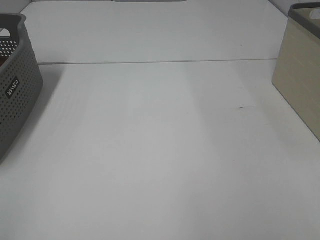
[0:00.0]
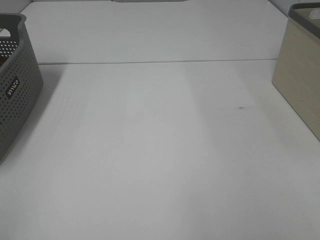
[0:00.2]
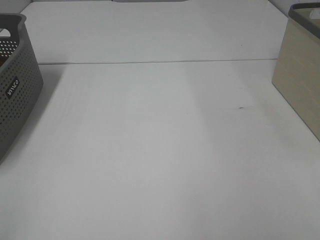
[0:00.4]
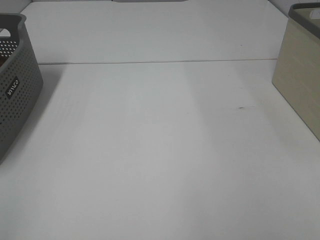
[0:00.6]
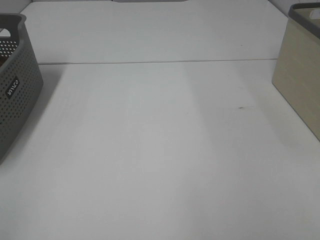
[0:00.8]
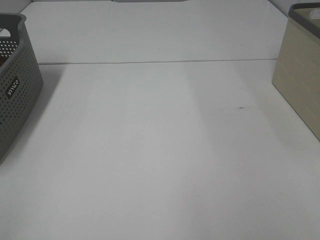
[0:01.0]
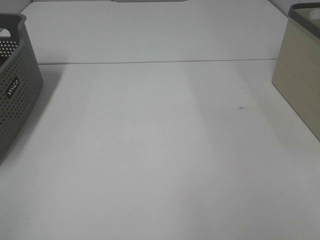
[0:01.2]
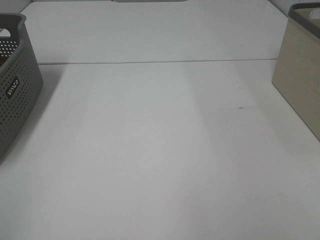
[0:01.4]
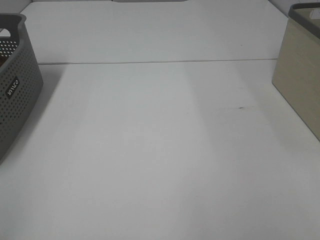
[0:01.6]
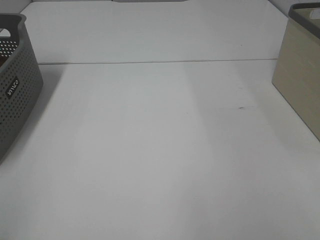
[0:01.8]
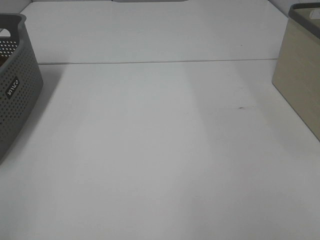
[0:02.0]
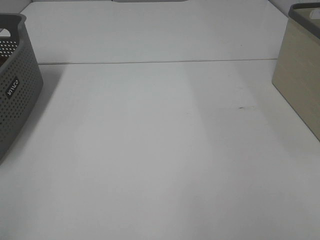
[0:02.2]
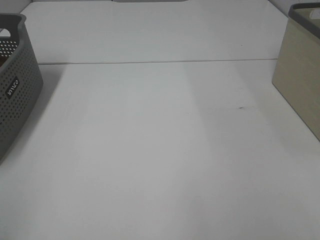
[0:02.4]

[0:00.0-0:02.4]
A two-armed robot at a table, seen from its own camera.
0:00.0 to 0:02.4: Neither gripper changes place.

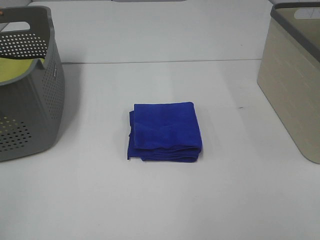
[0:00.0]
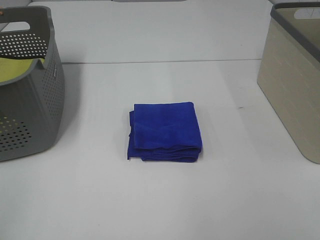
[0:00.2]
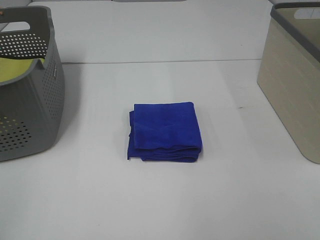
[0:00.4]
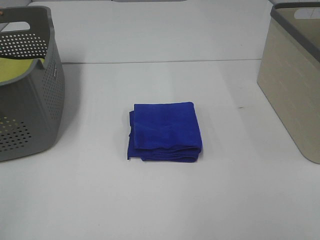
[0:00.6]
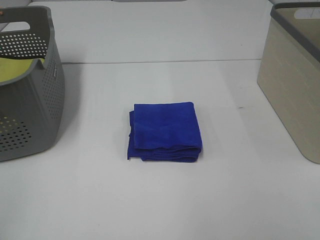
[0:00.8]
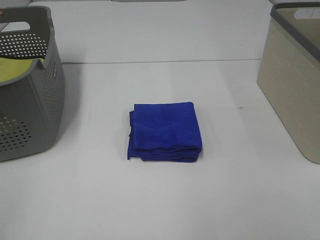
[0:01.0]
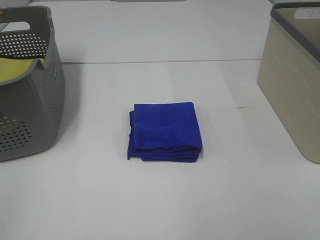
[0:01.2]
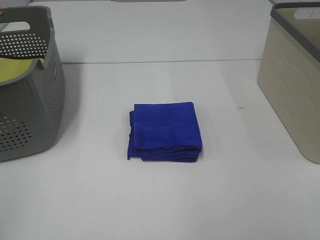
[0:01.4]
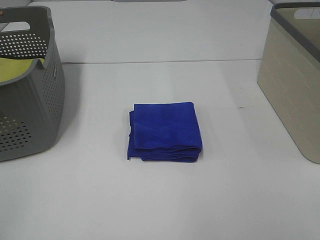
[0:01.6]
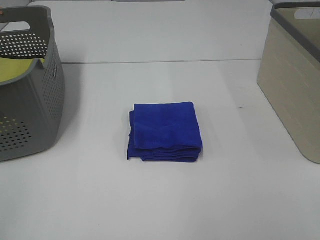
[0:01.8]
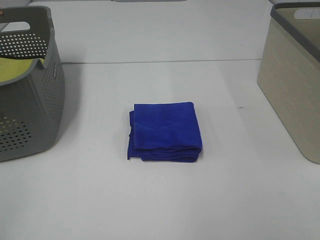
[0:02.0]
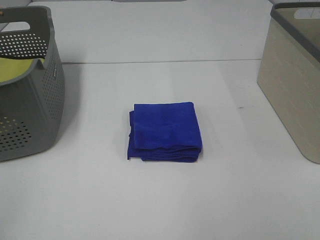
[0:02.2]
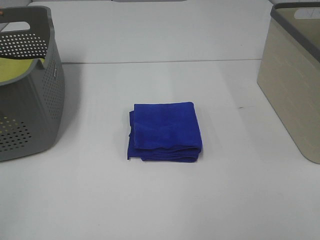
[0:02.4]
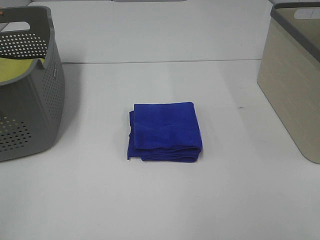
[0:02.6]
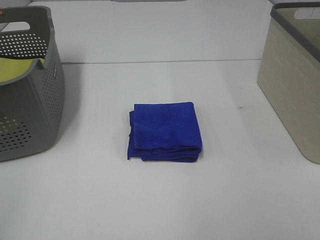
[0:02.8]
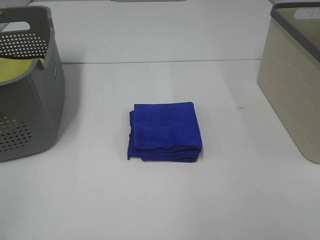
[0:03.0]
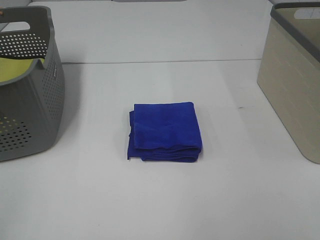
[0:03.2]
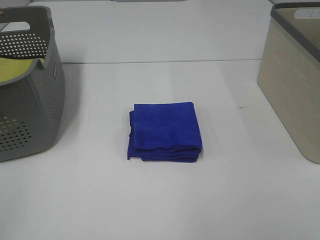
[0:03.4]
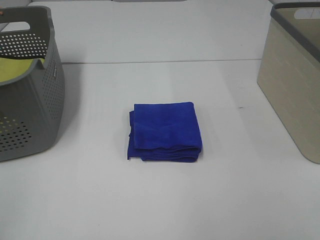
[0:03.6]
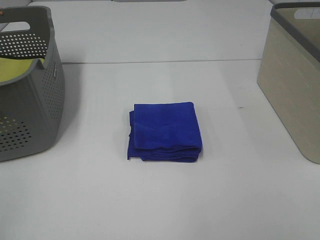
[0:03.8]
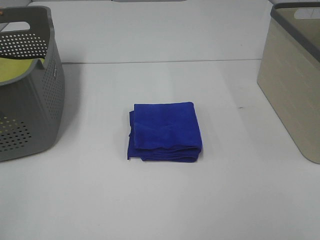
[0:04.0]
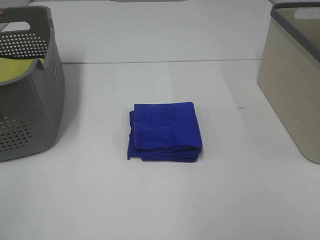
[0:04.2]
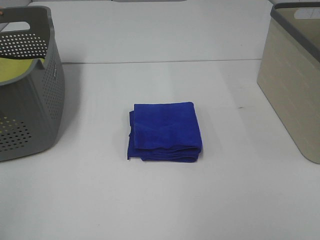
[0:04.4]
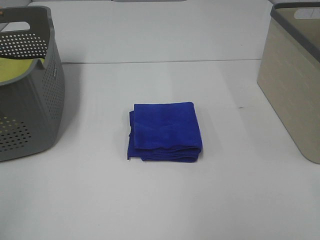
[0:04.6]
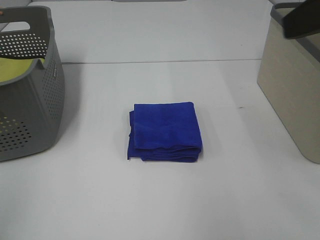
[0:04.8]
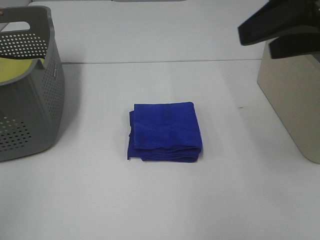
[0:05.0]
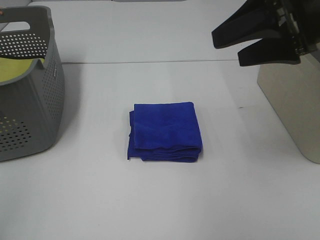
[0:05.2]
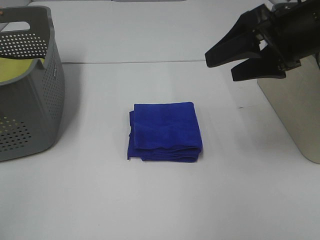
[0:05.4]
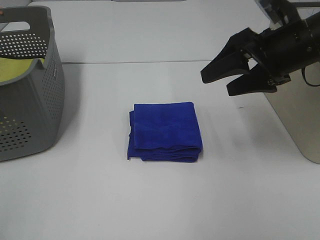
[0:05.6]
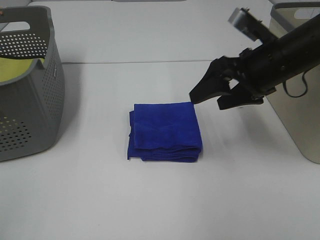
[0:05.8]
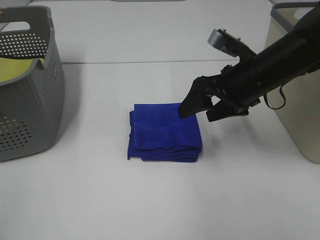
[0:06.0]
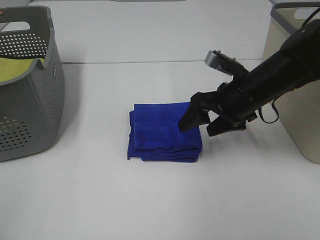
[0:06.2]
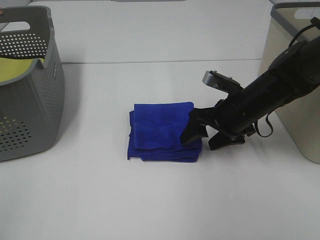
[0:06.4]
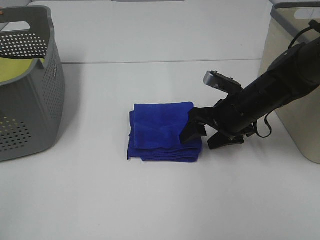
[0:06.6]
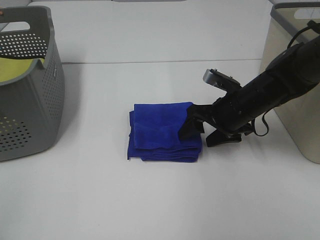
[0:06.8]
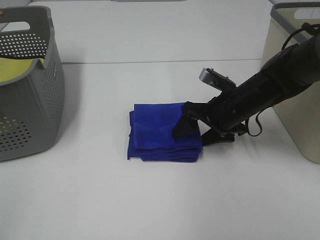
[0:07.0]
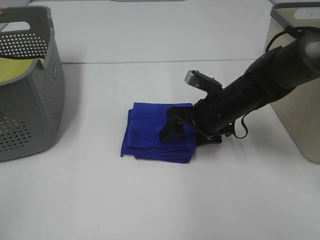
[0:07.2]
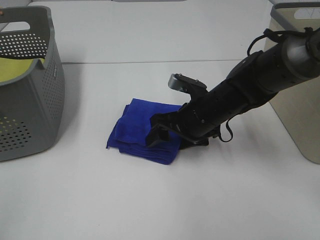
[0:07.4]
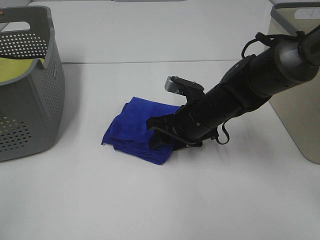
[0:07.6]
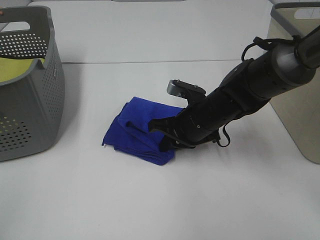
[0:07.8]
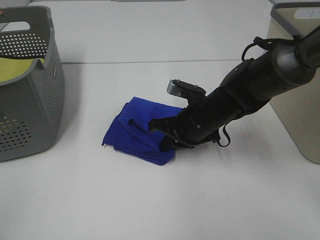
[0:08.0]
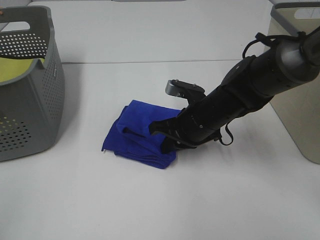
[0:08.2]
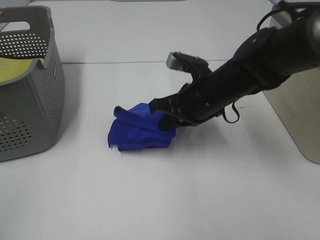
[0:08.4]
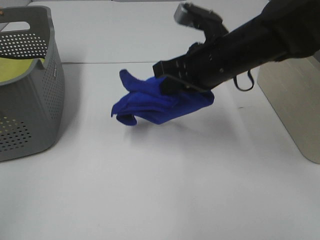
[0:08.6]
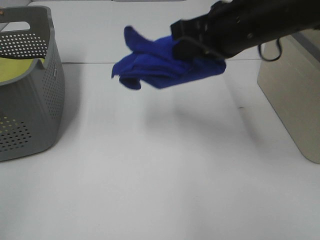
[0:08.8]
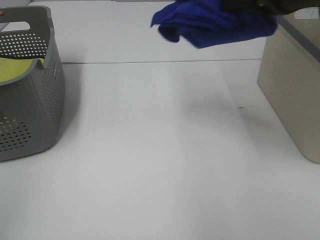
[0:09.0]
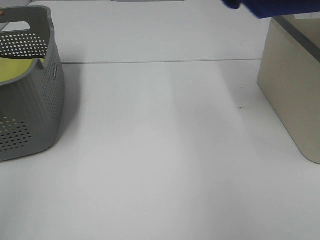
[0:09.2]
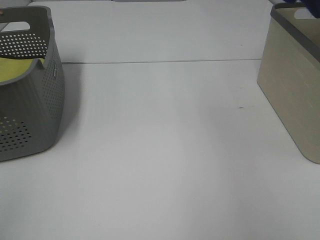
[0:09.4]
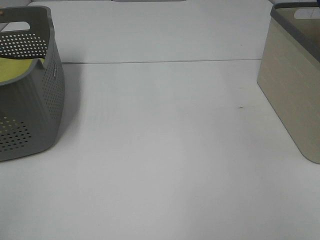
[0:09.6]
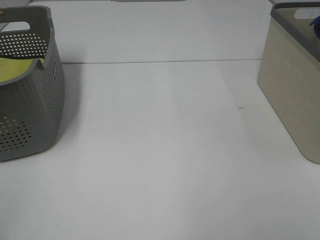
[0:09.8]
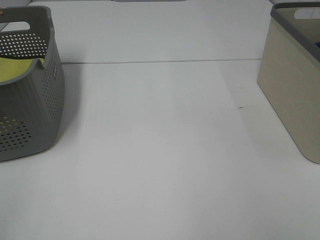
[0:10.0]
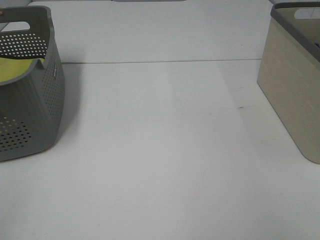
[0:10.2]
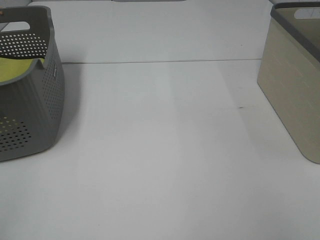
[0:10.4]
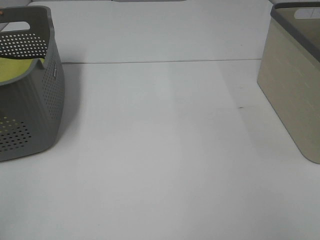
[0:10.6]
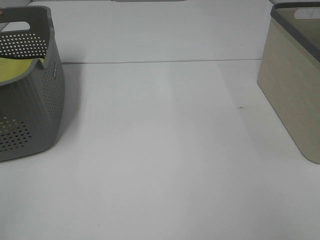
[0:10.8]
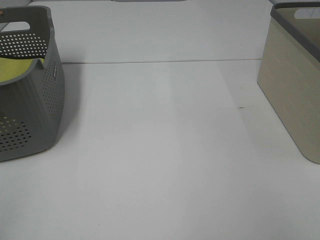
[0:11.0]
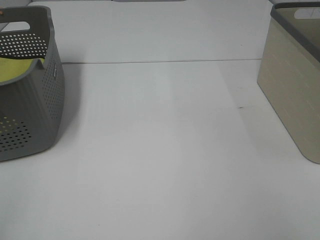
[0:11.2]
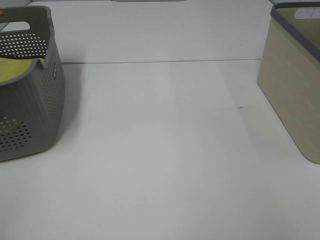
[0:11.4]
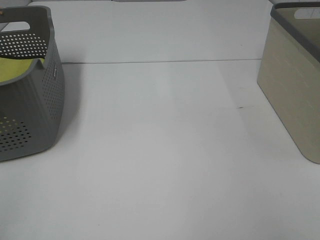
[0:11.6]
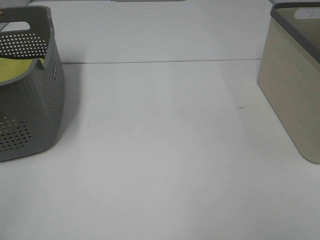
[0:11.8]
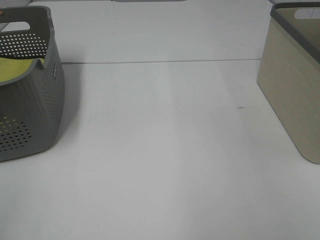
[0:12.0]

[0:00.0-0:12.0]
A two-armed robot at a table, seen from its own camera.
Step, 0:00.0 to 0:07.8: Right hand: grab the folded blue towel.
Step, 0:08.0 to 0:12.0: Right hand: place the blue towel in right basket.
0:00.0 to 0:03.0: Both grippers stay put.
0:04.4 to 0:06.0: The right gripper moves forward, downward and to the left, about 35 cm.
0:06.0 to 0:07.6: The right gripper travels downward and to the left by approximately 10 cm.
0:07.6 to 0:09.0: The right gripper heads upward and to the right, covering roughly 30 cm, and closes.
0:09.0 to 0:10.4: The right gripper is displaced to the right and downward by about 25 cm.

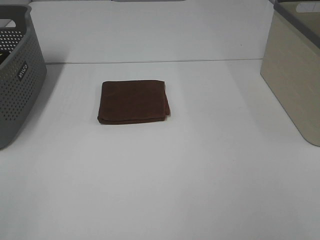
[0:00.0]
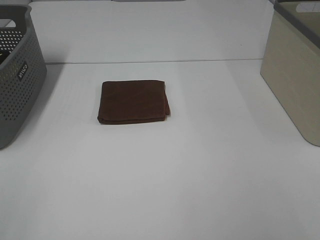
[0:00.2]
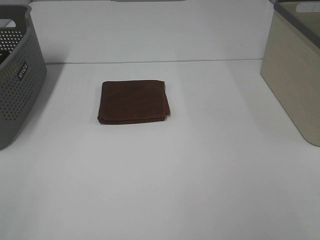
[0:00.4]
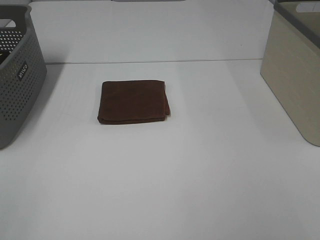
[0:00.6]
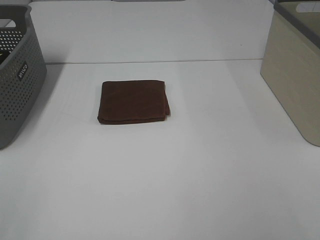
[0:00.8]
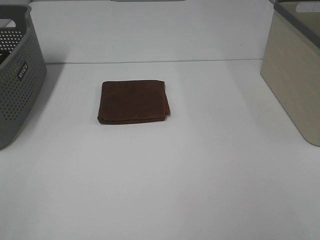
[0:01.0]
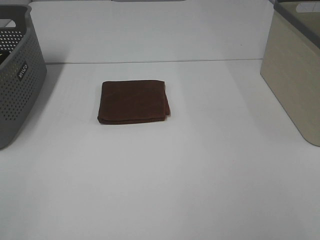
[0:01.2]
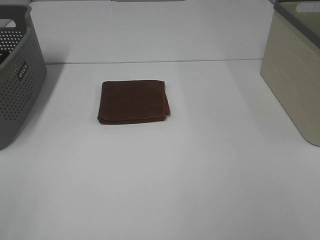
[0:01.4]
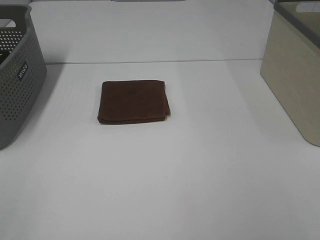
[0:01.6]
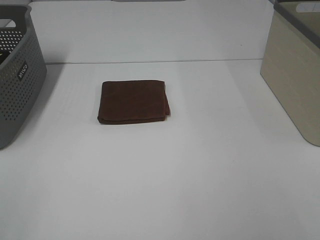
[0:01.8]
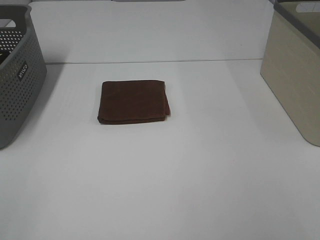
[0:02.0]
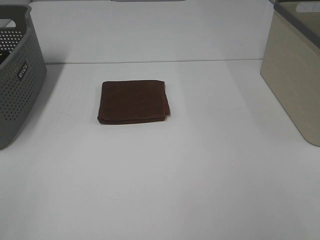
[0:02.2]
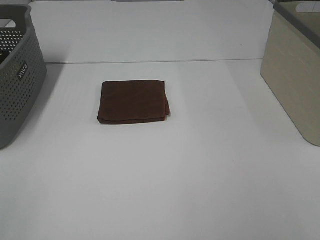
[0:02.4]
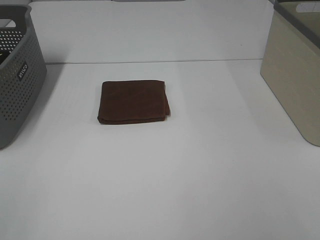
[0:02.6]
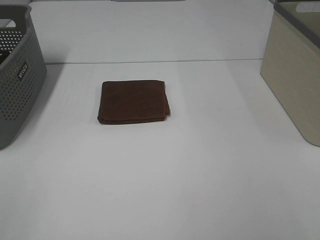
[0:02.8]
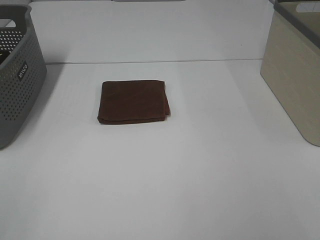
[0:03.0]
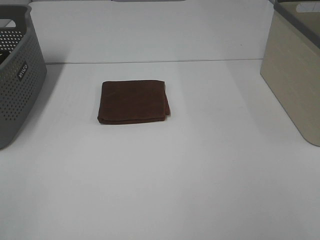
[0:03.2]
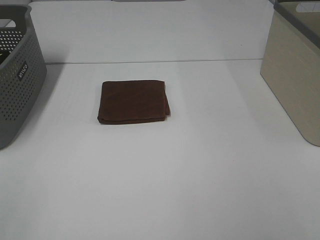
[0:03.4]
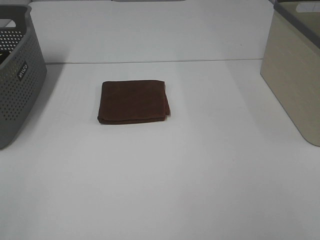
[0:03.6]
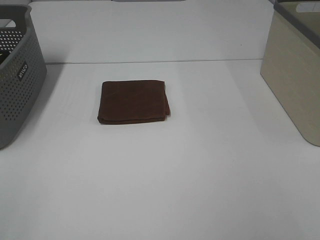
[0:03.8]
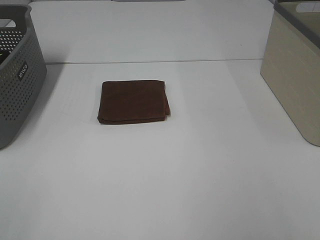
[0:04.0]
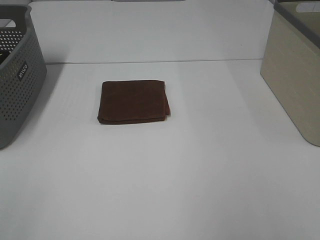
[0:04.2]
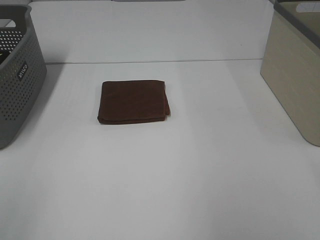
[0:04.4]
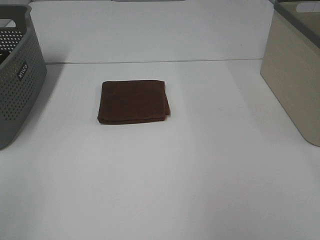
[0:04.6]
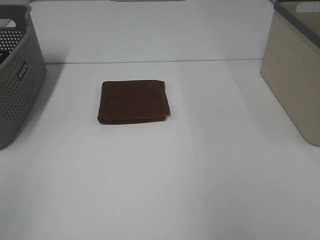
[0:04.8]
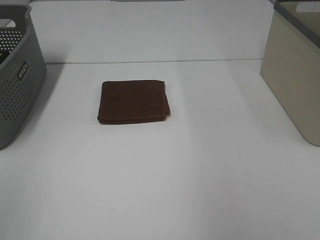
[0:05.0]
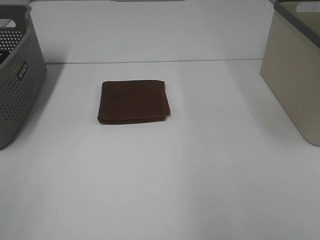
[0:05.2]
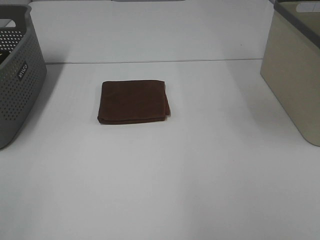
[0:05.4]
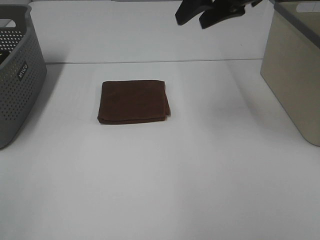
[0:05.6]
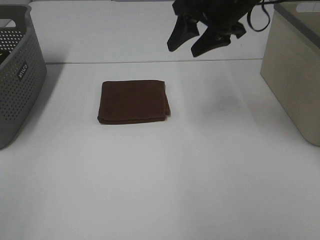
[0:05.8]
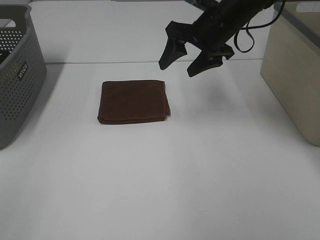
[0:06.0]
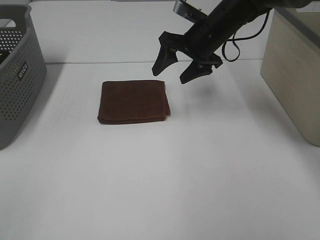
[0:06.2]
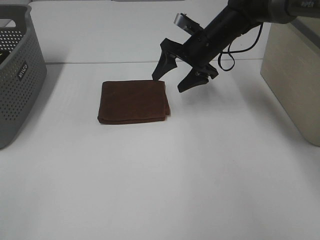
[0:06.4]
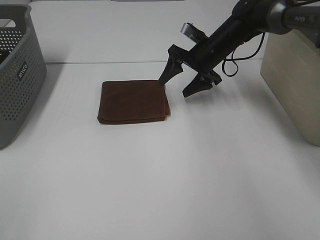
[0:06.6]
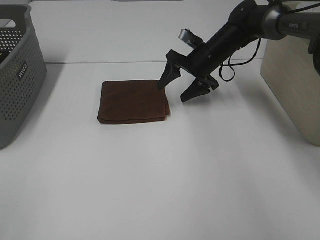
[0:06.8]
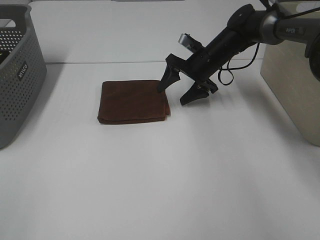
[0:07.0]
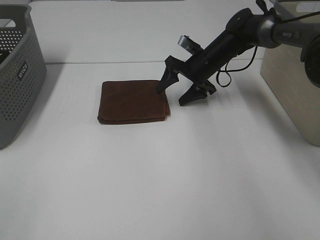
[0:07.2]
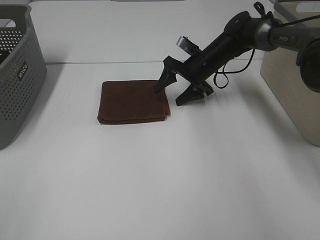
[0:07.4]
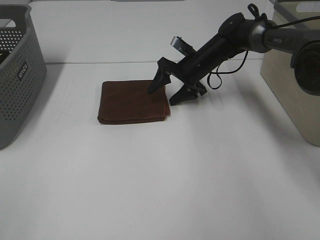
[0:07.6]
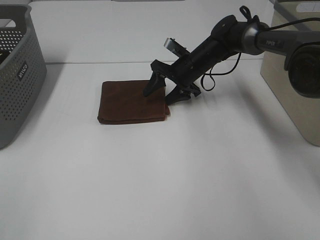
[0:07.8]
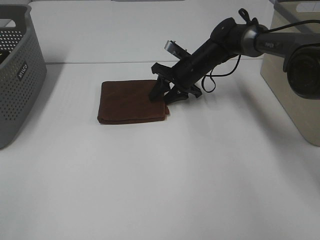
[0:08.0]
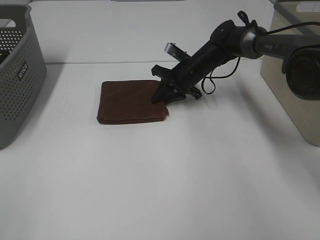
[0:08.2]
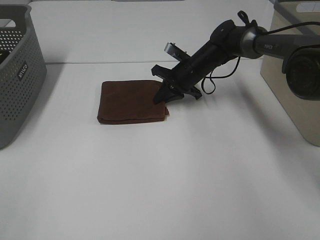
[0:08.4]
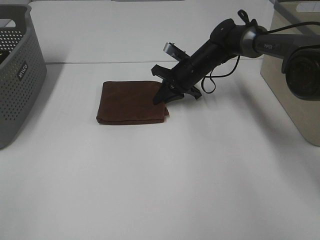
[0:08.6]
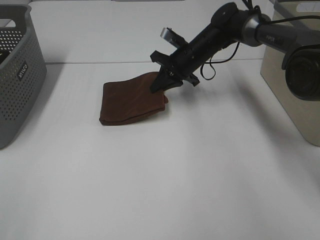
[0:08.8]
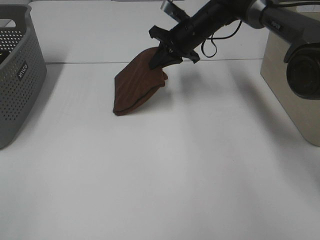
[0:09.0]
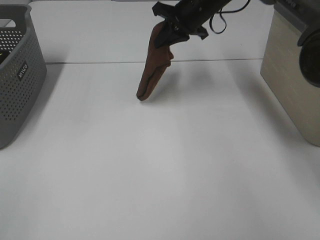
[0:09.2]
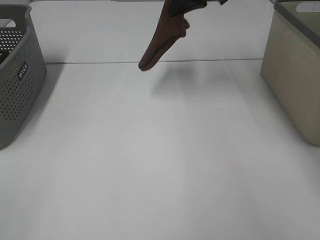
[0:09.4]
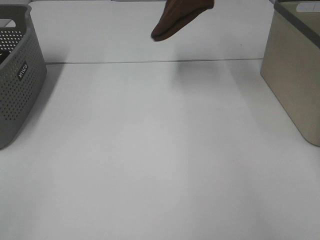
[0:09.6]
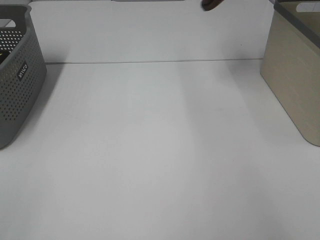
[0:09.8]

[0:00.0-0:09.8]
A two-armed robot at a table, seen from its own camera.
Step, 0:00.0 to 0:08.6: Right hand: grab the folded brown towel.
0:00.0 to 0:02.8: Both grippers stay put.
0:04.2 to 0:05.6: The right gripper travels forward and to the left by some 35 cm.
0:05.6 to 0:07.0: The right gripper travels downward and forward by approximately 25 cm.
0:07.0 to 0:08.4: The right gripper closes up.
0:08.4 to 0:09.8: The right gripper moves upward and to the right, some 40 cm.
